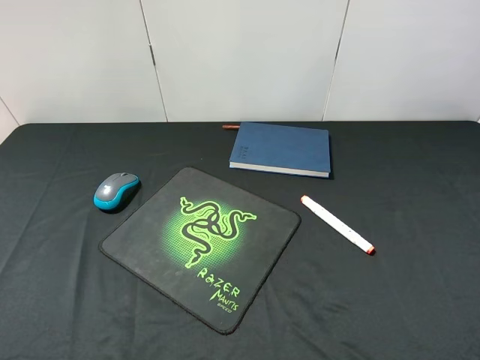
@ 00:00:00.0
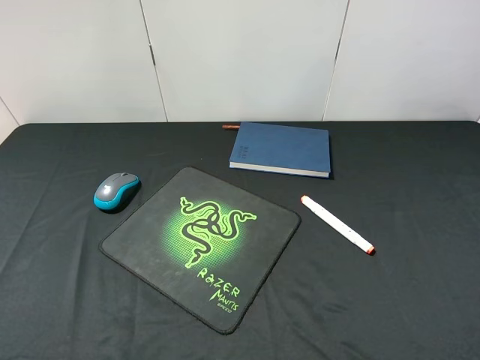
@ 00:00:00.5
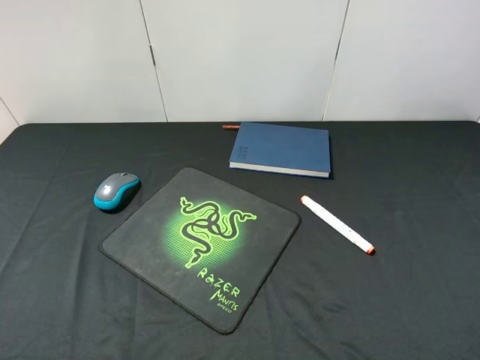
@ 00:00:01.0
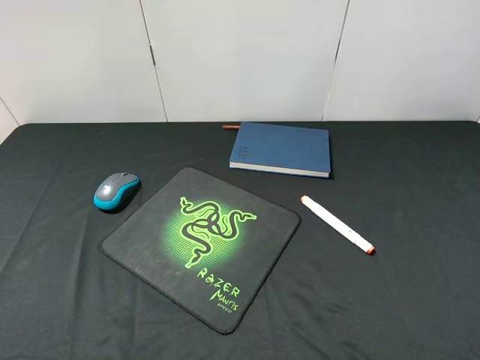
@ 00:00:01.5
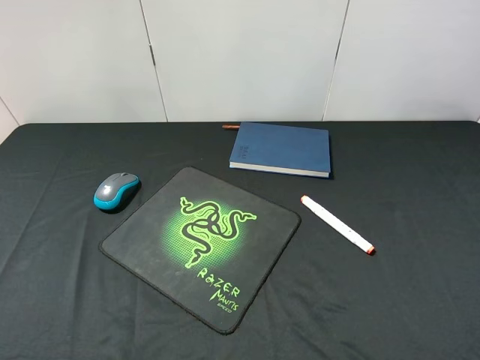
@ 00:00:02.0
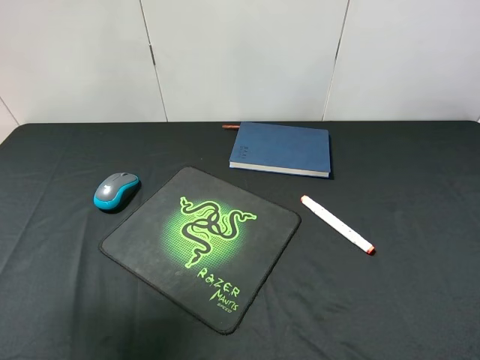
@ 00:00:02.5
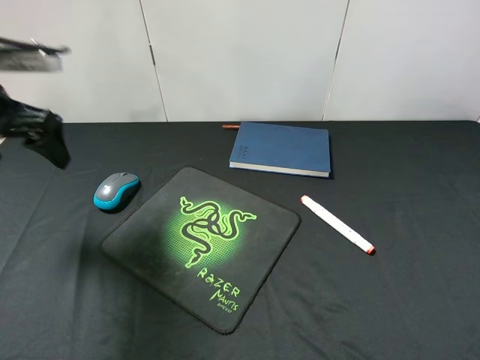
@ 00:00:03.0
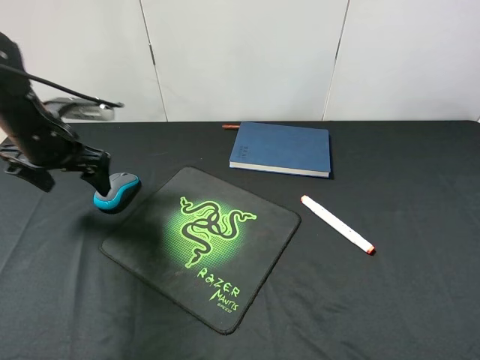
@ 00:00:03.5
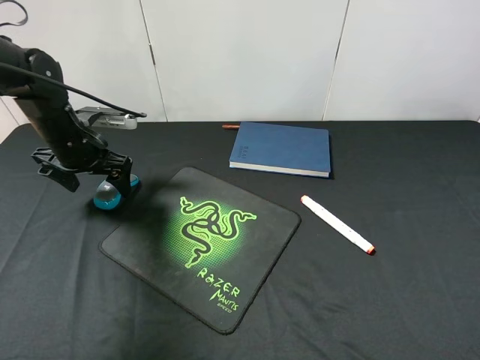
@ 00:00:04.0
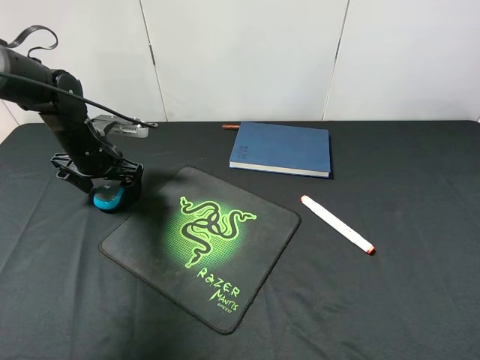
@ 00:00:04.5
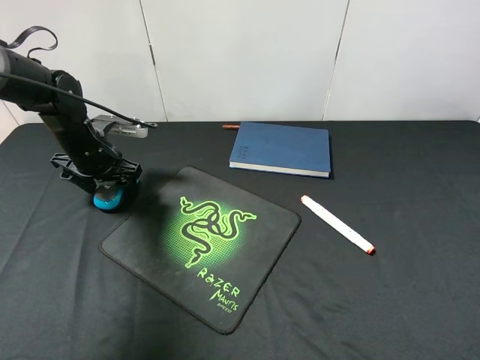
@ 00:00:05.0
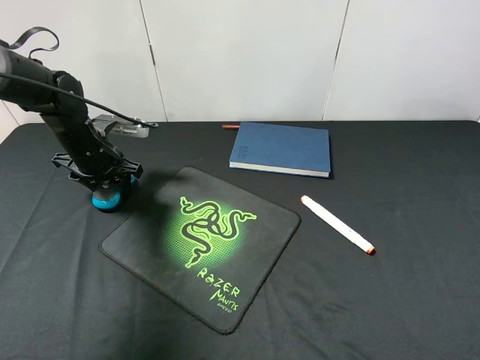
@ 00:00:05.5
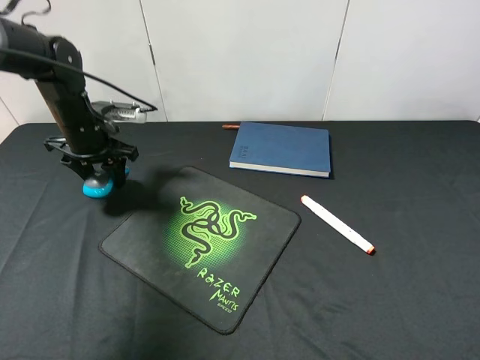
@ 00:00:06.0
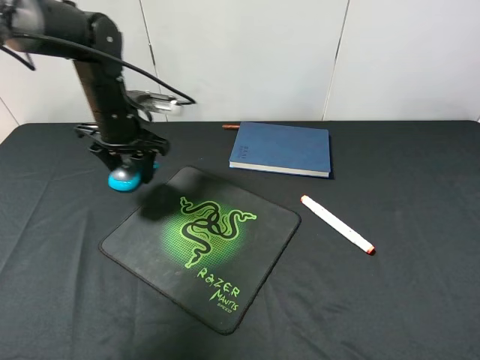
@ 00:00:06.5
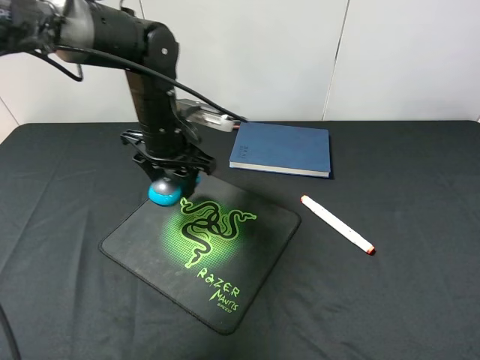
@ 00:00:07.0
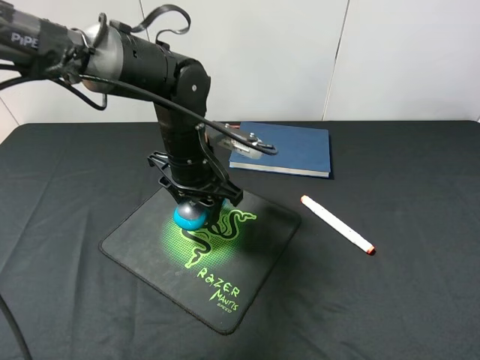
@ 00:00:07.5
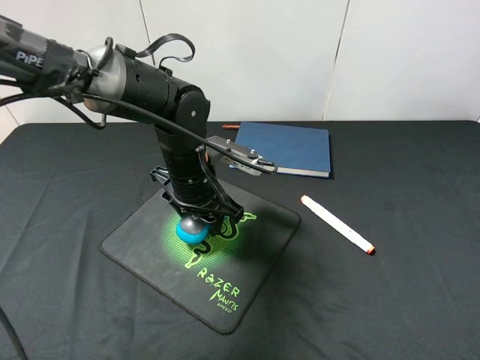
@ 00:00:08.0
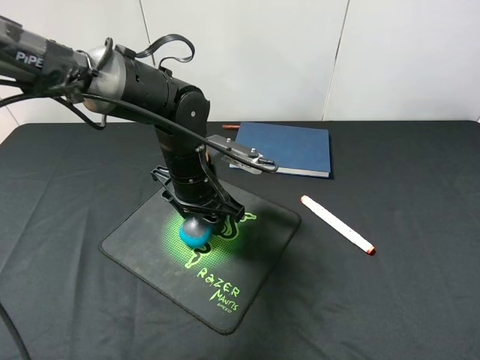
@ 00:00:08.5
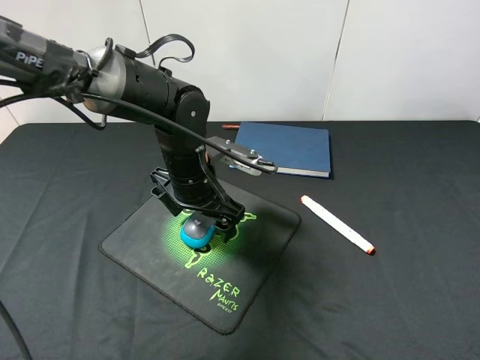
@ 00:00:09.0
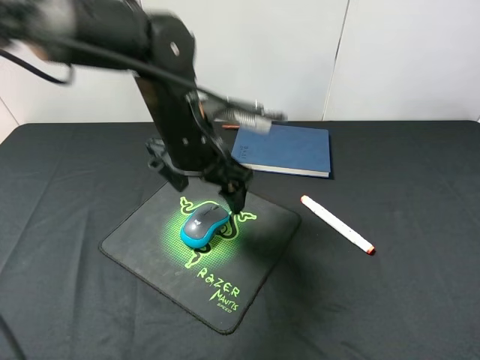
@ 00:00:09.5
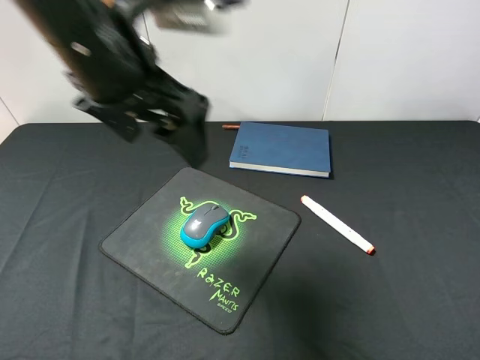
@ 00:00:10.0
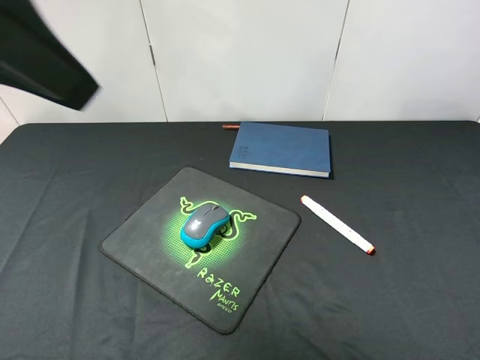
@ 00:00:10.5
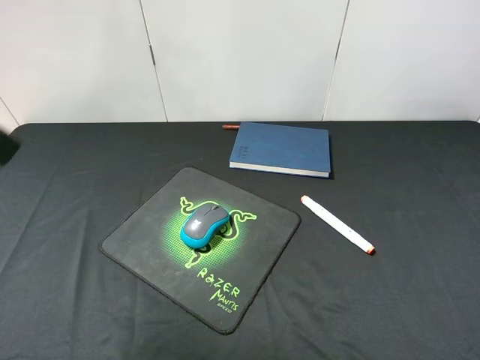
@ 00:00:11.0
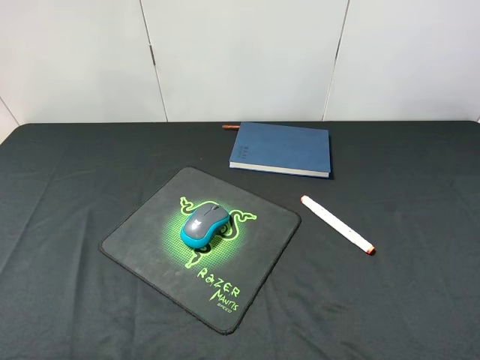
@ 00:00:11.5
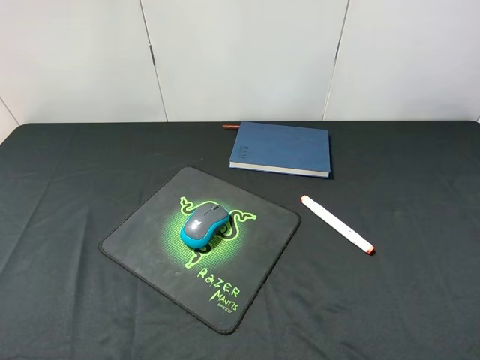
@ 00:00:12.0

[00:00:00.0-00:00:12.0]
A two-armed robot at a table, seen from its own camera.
Step, 00:00:00.0 to 00:00:06.0: Pick up the mouse with left gripper.
Step, 00:00:06.5 to 00:00:09.0: Place the mouse on the mouse pad with left gripper.
00:00:02.0 to 00:00:04.0: The left gripper travels forward and downward by approximately 40 cm.
00:00:04.0 to 00:00:06.0: The left gripper closes.
00:00:06.0 to 00:00:08.0: The left gripper heads to the right and backward, covering about 20 cm.
00:00:08.0 to 00:00:10.0: The left gripper moves upward, some 20 cm, and opens.
00:00:10.0 to 00:00:12.0: The left gripper is displaced to the left and backward by about 30 cm.

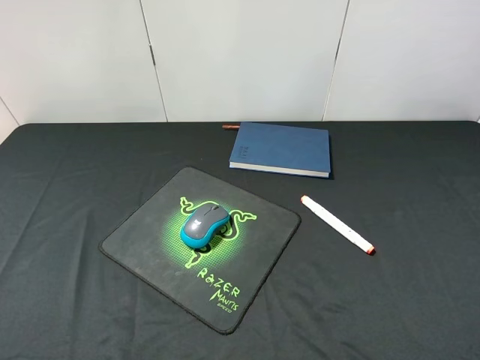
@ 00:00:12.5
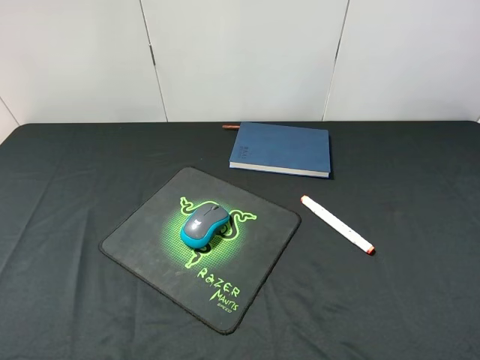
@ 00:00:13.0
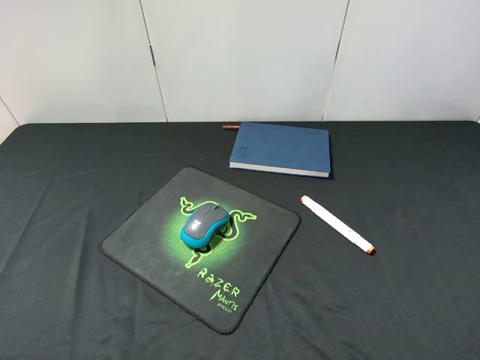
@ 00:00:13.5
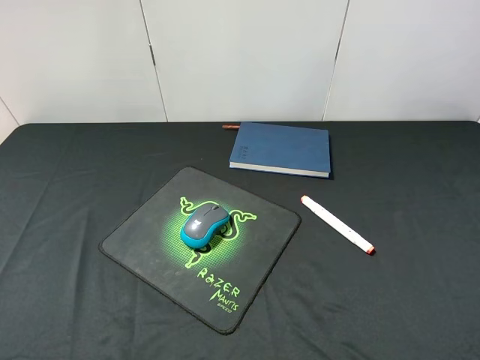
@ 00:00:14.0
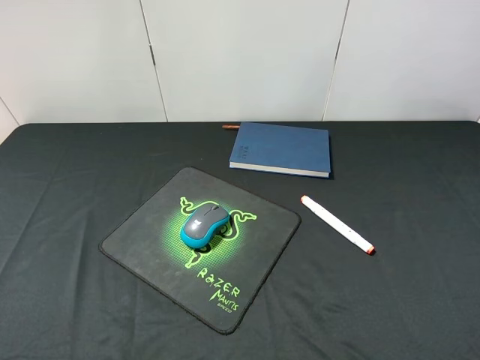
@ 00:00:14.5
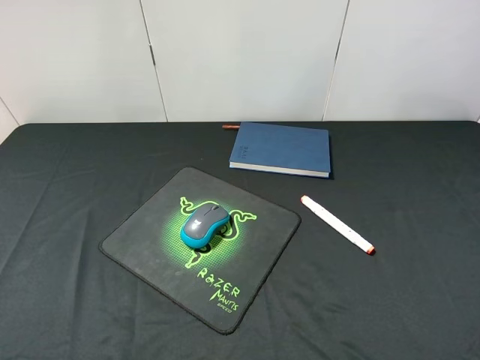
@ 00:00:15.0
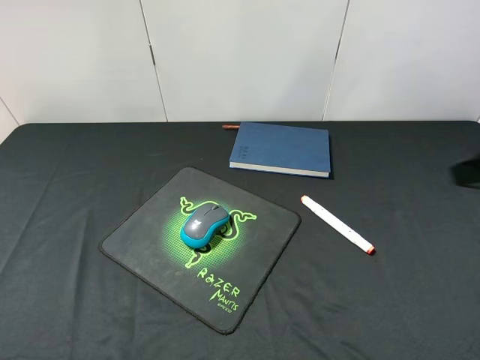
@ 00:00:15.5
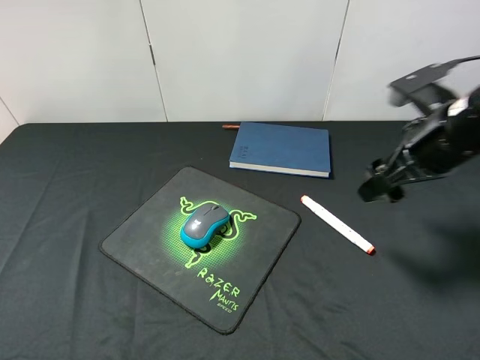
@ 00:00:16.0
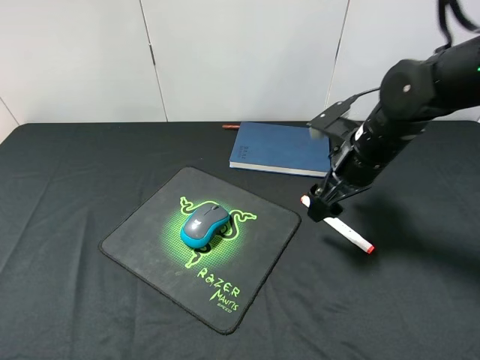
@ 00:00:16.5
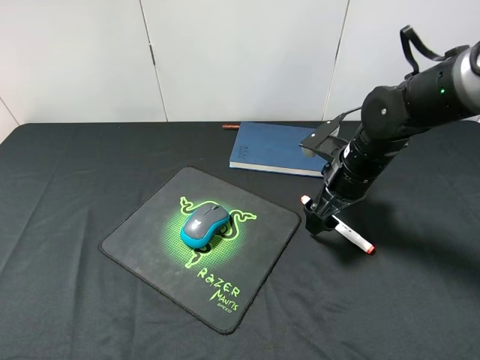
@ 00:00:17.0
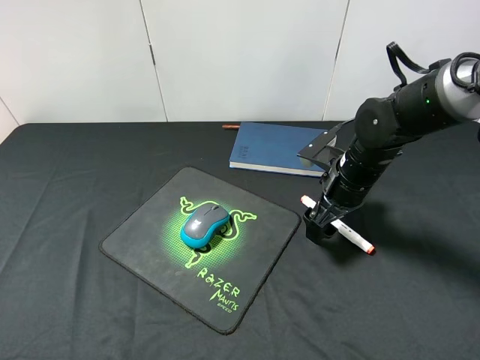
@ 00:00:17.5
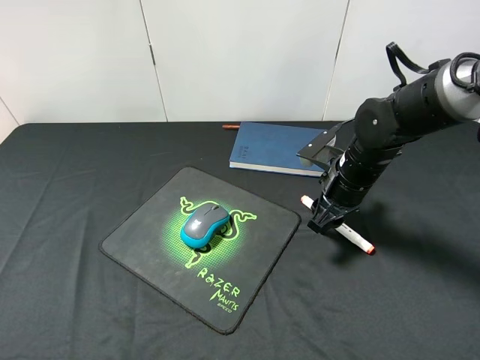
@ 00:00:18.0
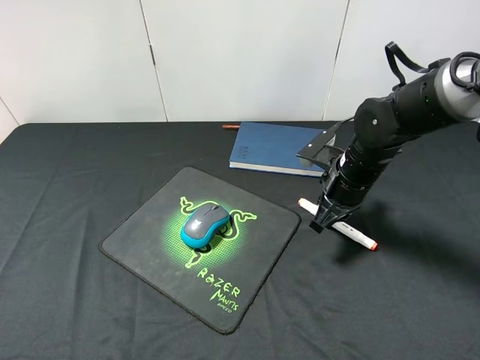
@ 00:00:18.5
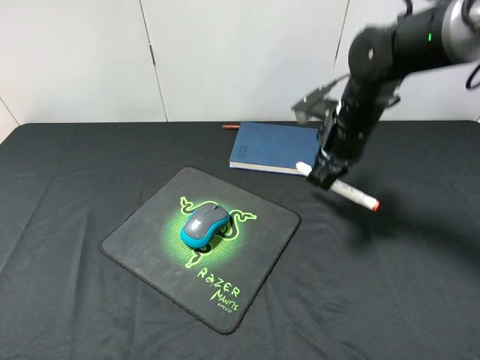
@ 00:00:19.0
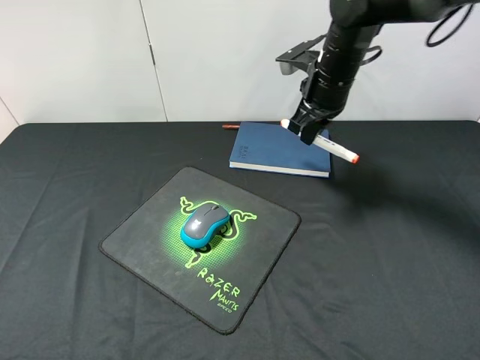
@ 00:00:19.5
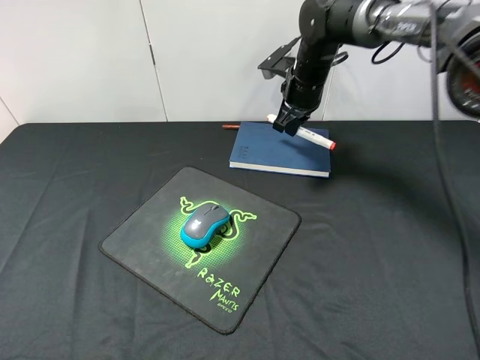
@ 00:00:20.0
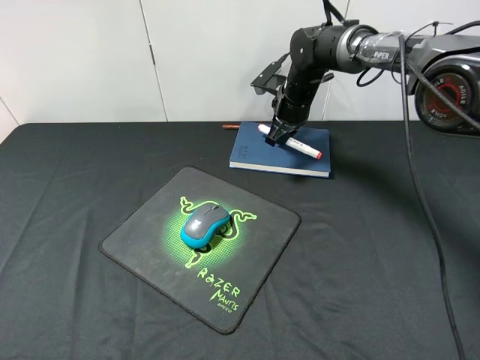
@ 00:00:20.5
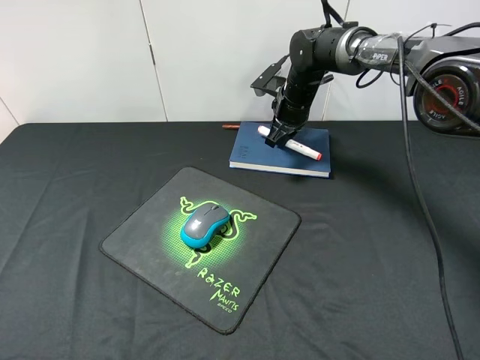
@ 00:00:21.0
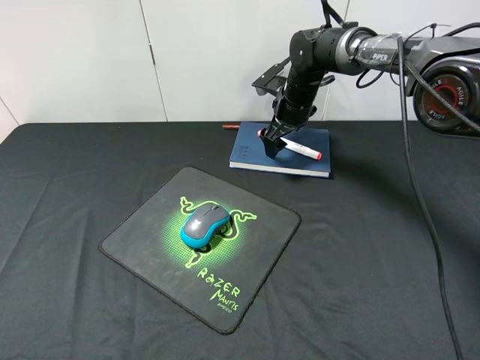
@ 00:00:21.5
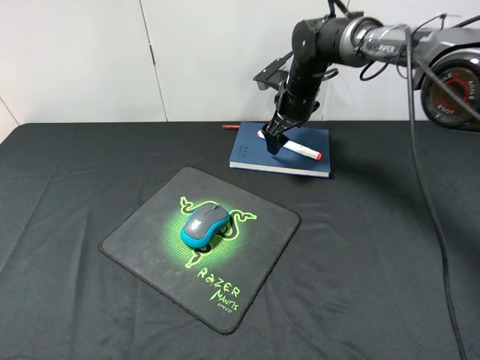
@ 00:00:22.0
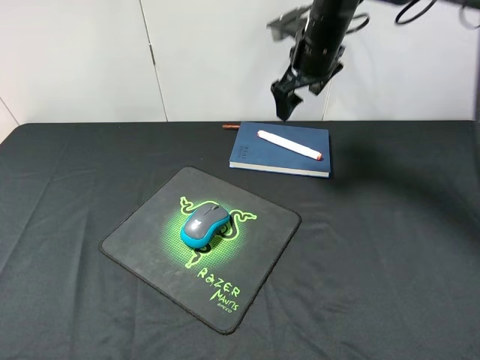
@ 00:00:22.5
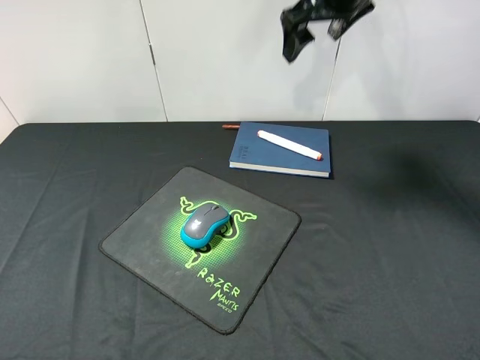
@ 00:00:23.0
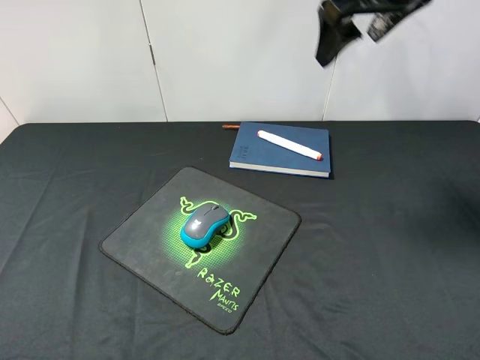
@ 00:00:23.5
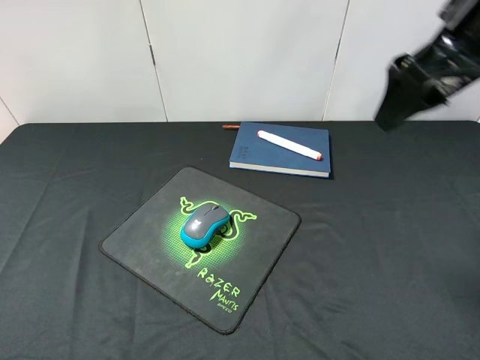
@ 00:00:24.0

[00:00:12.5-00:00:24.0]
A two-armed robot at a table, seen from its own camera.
Step, 00:00:12.5 to 00:00:18.5: Pick up the marker pen with right gripper.
Step, 00:00:19.0 to 00:00:21.5: Place the marker pen on the notebook with right gripper.
00:00:12.5 to 00:00:14.5: Neither gripper changes place.
00:00:14.5 to 00:00:16.5: The right gripper shifts some 30 cm forward.
00:00:16.5 to 00:00:18.5: The right gripper travels downward by about 5 cm, and closes up.
00:00:18.5 to 00:00:20.0: The right gripper is displaced forward and upward by roughly 15 cm.
00:00:20.0 to 00:00:22.0: The right gripper ends up some 5 cm from where it was, and opens its fingers.
00:00:22.0 to 00:00:24.0: The right gripper shifts some 30 cm backward and upward.

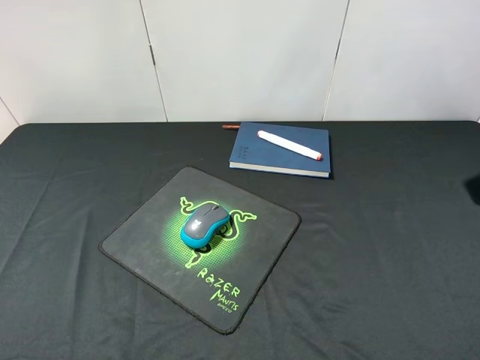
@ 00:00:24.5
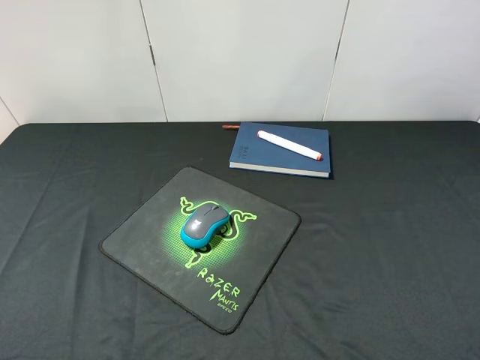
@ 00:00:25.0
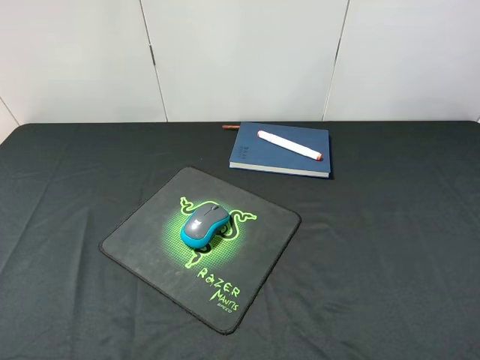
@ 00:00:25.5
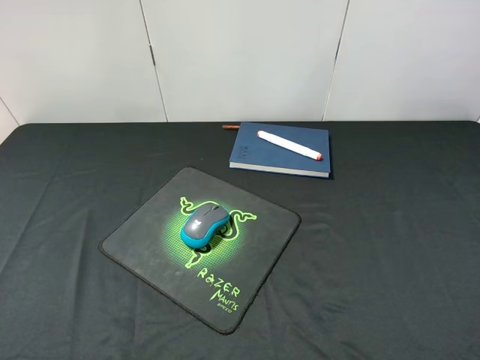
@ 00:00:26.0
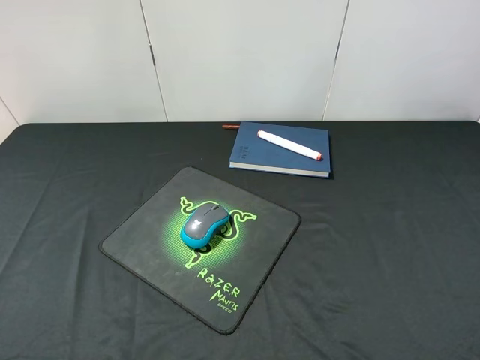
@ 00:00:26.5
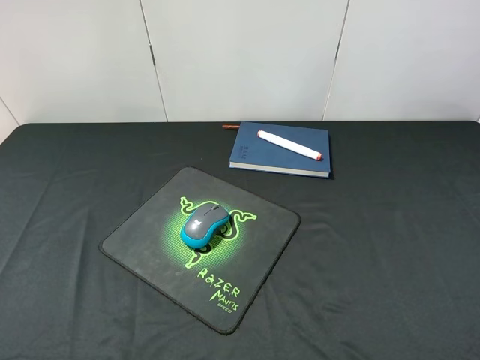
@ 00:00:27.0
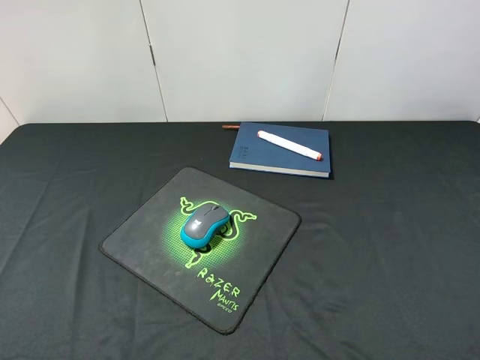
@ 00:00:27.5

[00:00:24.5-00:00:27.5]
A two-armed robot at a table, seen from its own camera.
00:00:26.0 to 00:00:27.5: Neither gripper changes place.
